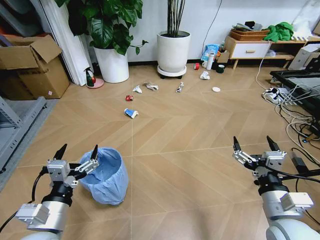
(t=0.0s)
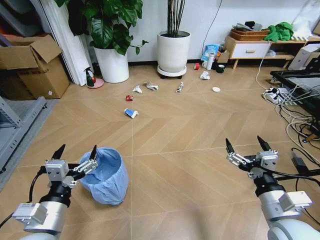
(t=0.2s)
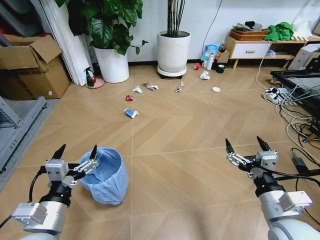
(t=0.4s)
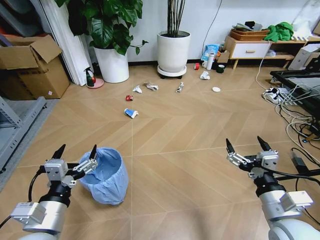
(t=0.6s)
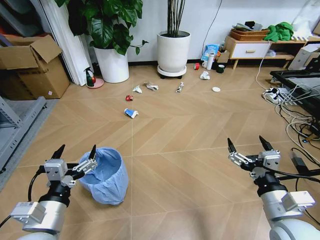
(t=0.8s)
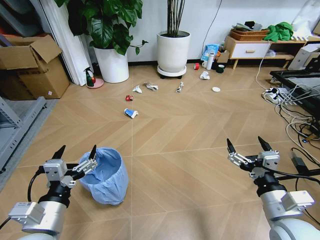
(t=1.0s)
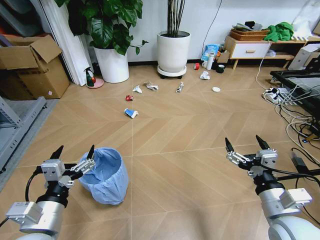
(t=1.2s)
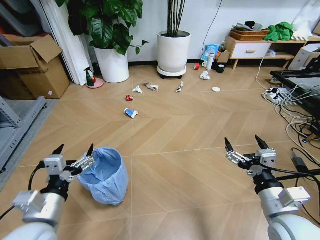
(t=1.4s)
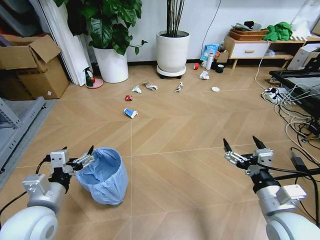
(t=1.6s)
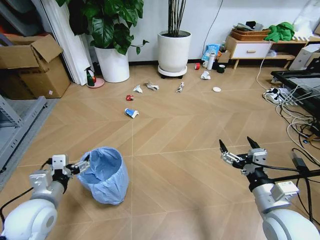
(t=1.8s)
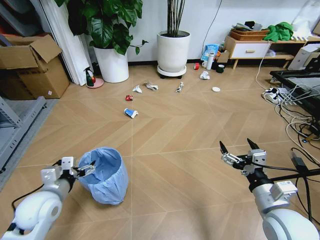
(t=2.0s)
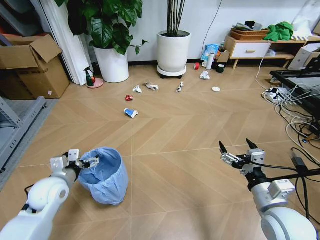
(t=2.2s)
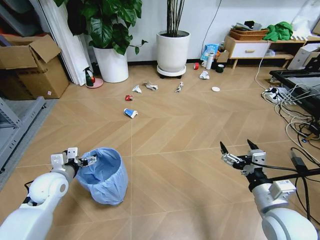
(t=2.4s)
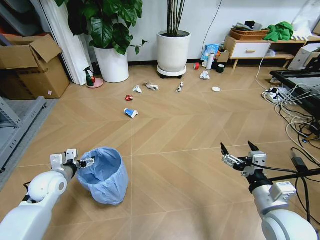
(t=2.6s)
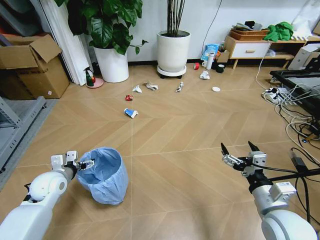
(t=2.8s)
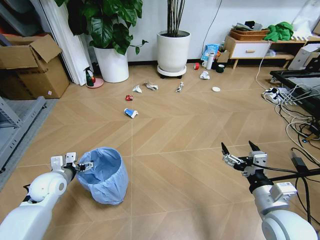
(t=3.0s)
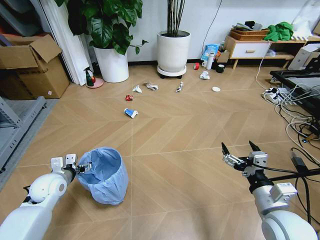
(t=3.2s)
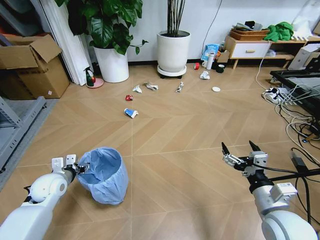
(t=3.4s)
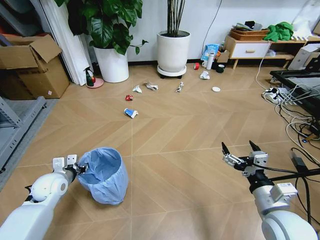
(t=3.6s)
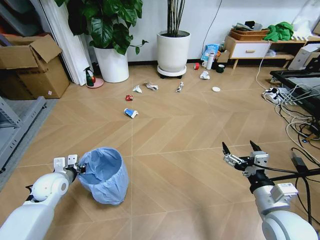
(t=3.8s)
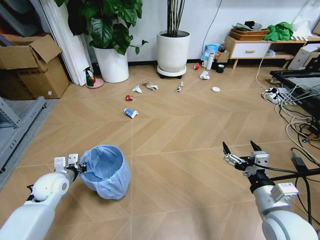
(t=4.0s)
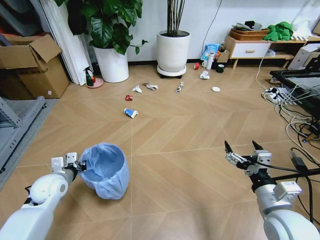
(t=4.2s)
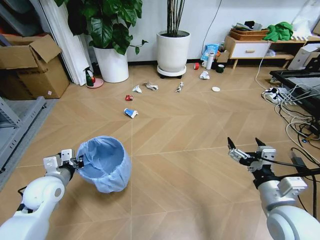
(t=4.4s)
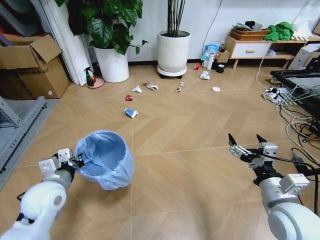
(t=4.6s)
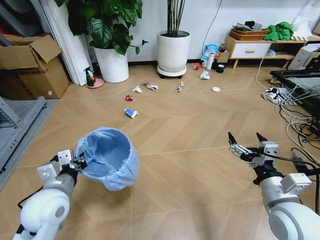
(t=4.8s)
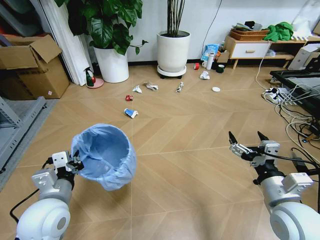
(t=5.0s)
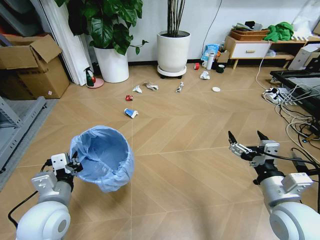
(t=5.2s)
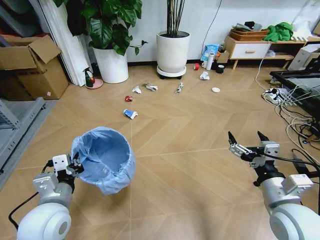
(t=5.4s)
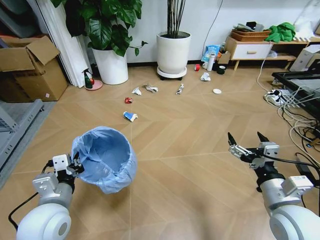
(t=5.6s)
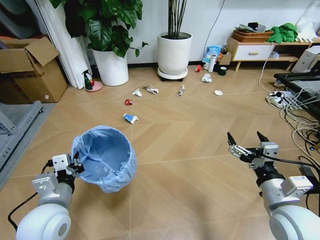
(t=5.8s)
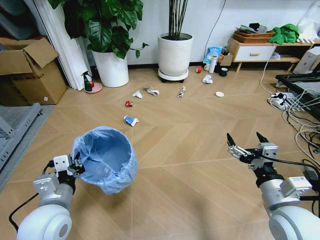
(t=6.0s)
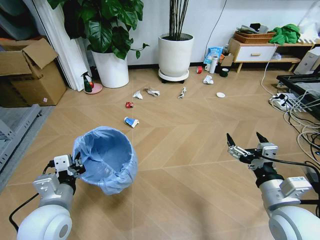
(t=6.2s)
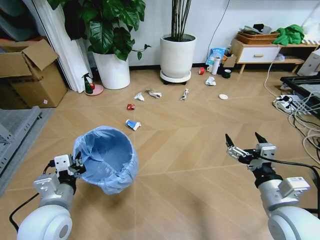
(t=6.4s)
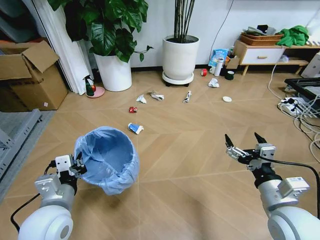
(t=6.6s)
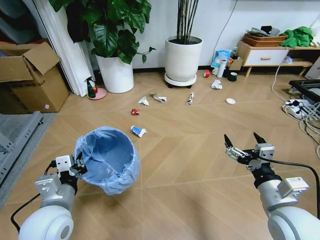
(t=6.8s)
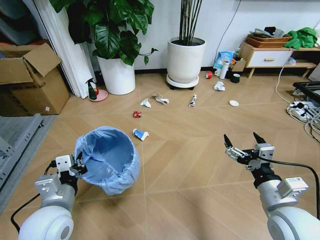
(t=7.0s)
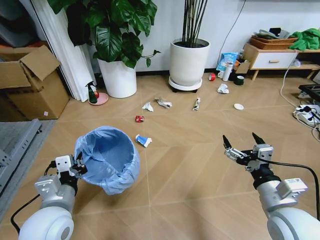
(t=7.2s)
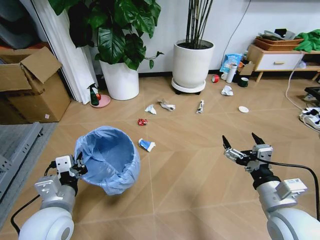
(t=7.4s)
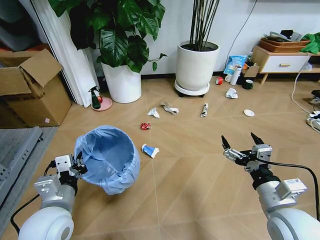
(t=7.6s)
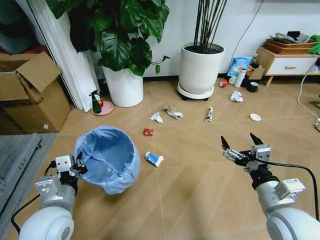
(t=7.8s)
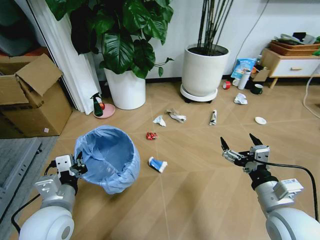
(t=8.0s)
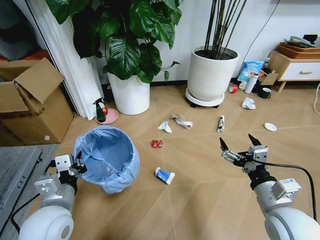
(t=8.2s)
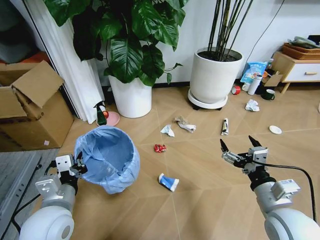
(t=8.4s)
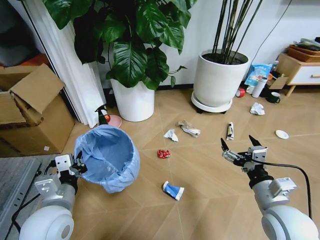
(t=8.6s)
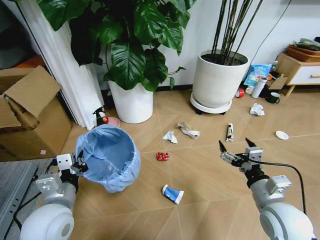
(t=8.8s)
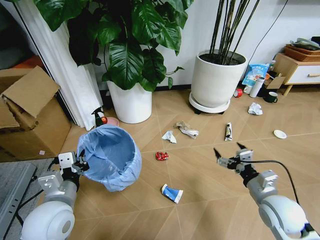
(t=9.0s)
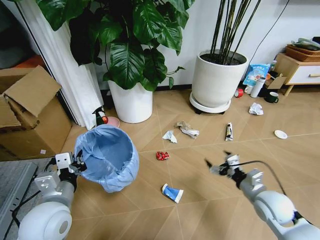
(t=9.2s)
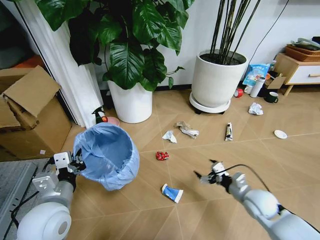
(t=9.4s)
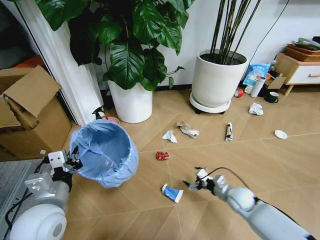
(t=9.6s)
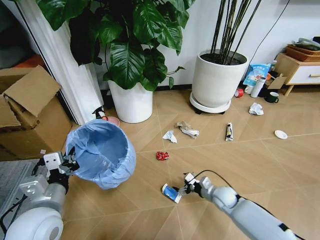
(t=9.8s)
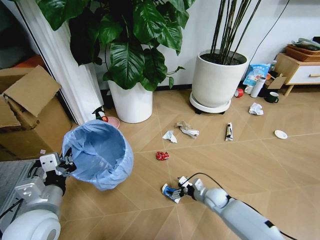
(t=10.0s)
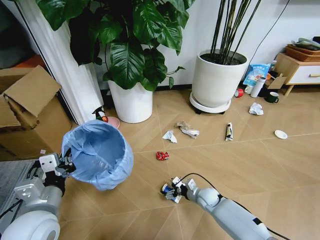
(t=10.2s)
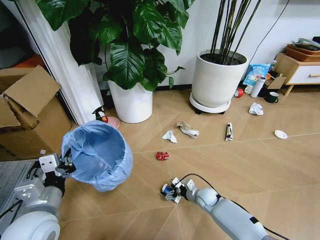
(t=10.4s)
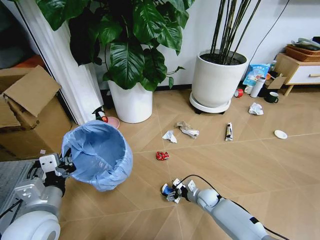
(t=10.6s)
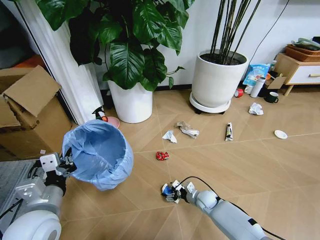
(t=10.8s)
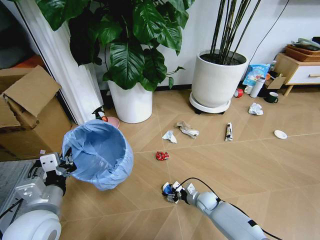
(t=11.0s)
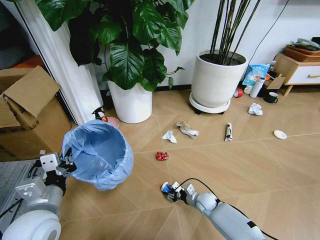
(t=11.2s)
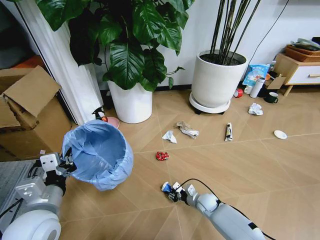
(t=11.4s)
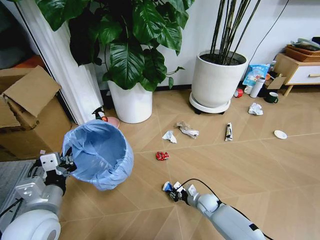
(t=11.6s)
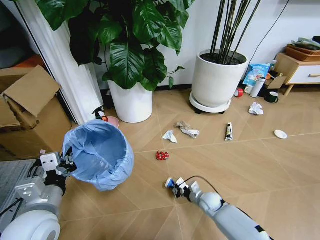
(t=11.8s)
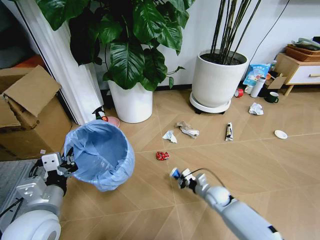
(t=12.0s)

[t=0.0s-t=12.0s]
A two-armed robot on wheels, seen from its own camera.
Task of the whole recording: Pick up the trash bin and place the garbage on the floor into it.
t=1.6s to t=3.0s: The left gripper is displaced forward, downward and to the left by roughly 20 cm.
t=3.0s to t=4.4s: The left gripper closes its fingers.
t=4.4s to t=6.0s: The left gripper goes about 15 cm backward, to the right and upward.
t=7.6s to t=9.0s: The right gripper moves downward and forward, about 10 cm.
t=9.0s to t=10.4s: The right gripper is displaced downward, forward and to the left by roughly 30 cm.
t=10.4s to t=12.0s: The right gripper changes place by about 5 cm, and closes up.

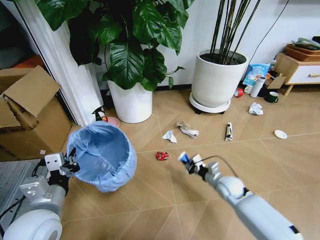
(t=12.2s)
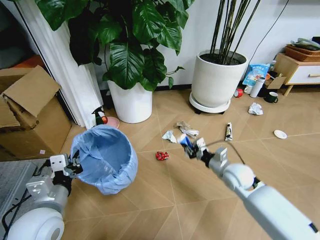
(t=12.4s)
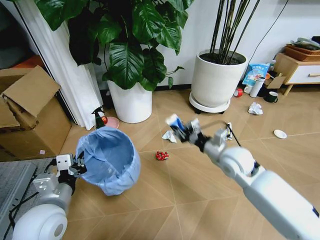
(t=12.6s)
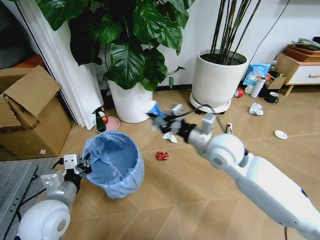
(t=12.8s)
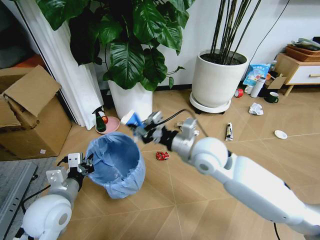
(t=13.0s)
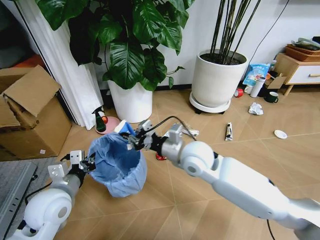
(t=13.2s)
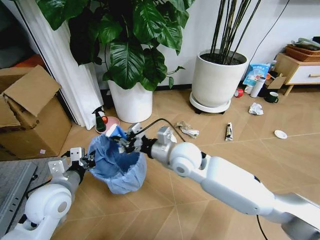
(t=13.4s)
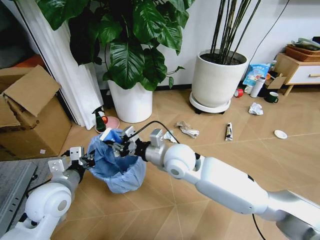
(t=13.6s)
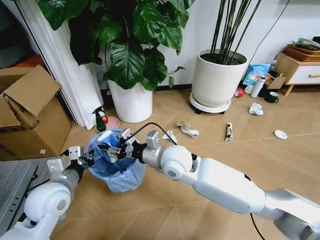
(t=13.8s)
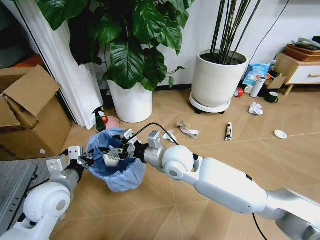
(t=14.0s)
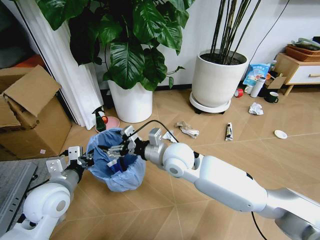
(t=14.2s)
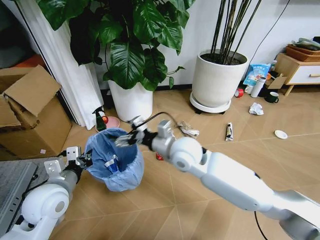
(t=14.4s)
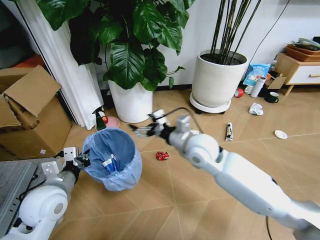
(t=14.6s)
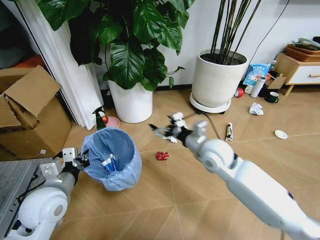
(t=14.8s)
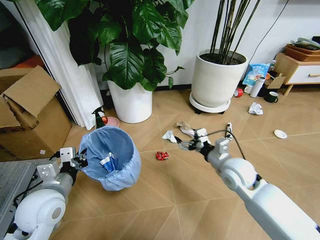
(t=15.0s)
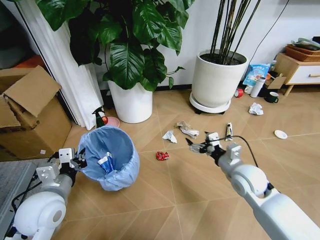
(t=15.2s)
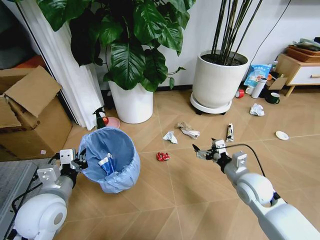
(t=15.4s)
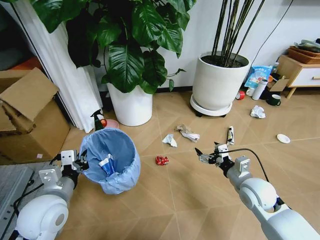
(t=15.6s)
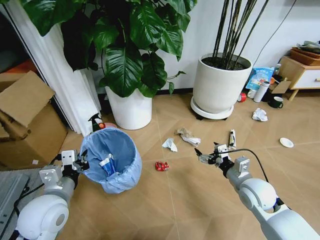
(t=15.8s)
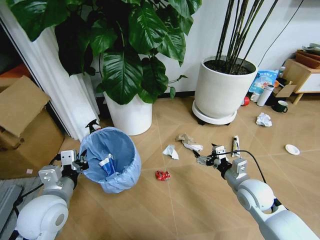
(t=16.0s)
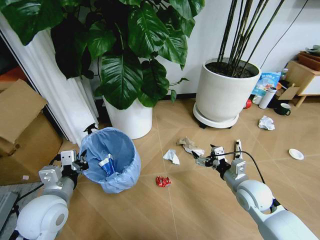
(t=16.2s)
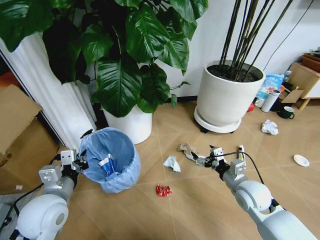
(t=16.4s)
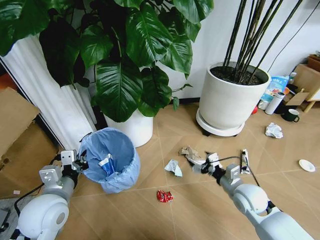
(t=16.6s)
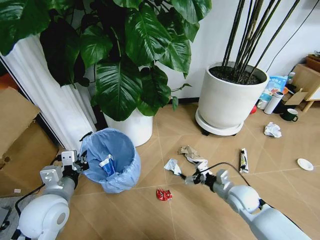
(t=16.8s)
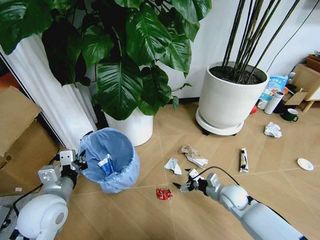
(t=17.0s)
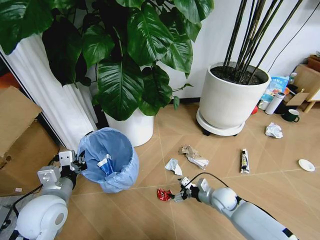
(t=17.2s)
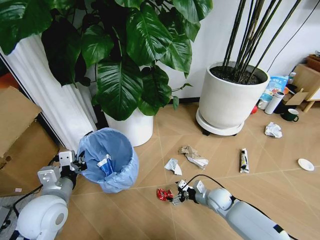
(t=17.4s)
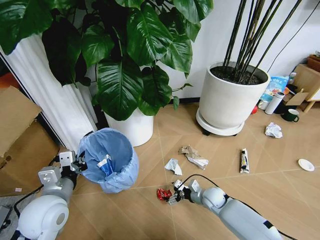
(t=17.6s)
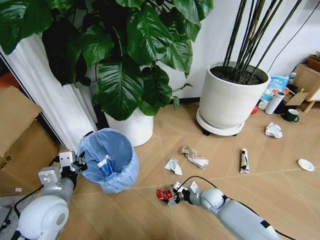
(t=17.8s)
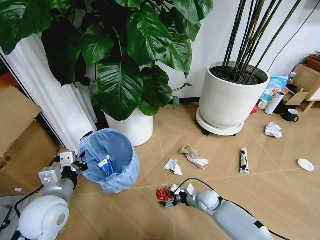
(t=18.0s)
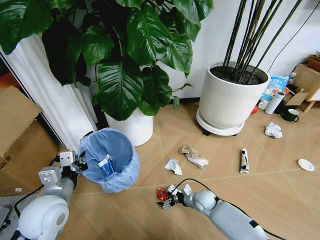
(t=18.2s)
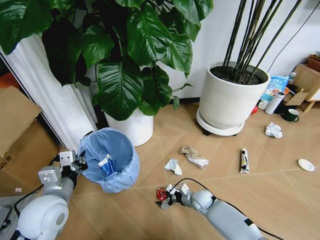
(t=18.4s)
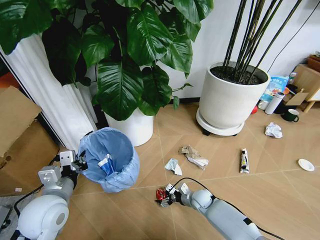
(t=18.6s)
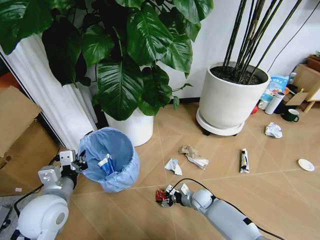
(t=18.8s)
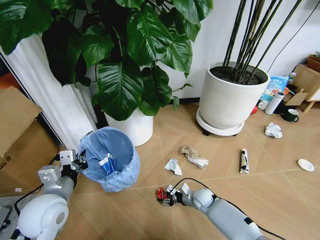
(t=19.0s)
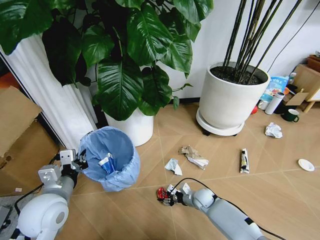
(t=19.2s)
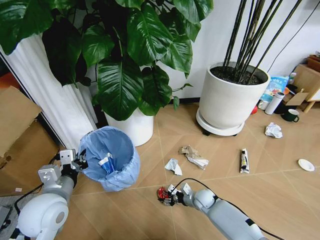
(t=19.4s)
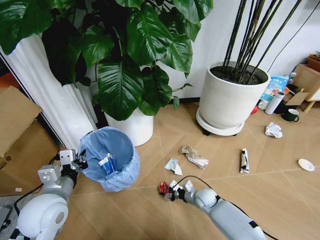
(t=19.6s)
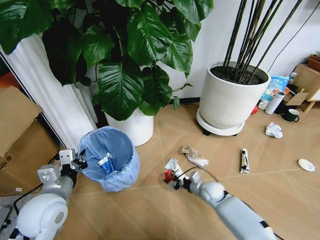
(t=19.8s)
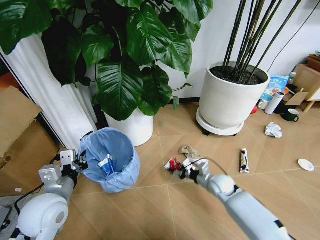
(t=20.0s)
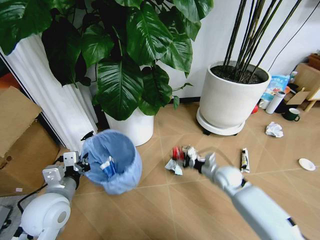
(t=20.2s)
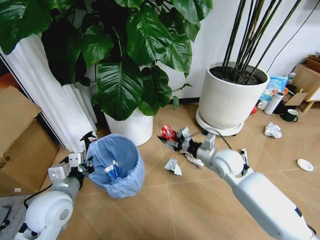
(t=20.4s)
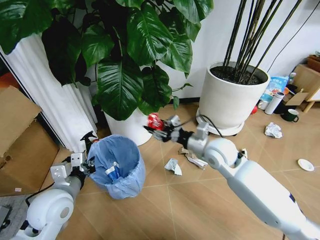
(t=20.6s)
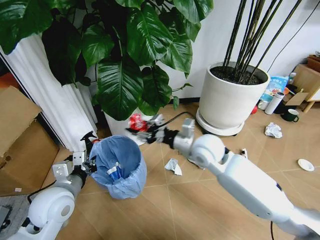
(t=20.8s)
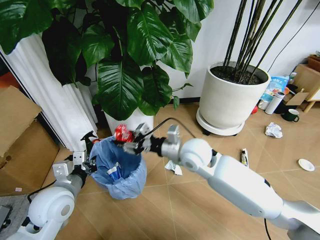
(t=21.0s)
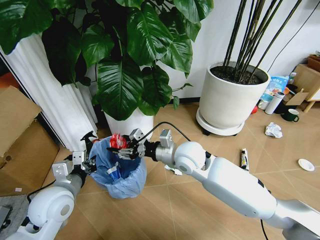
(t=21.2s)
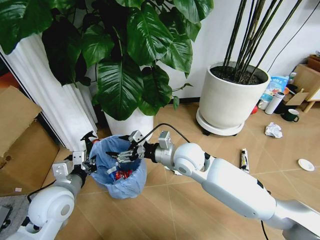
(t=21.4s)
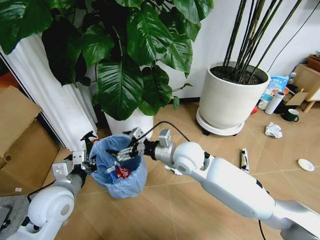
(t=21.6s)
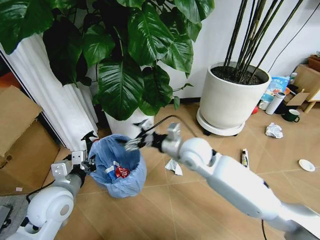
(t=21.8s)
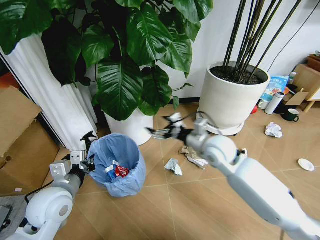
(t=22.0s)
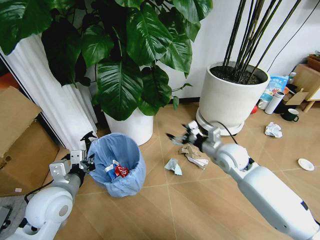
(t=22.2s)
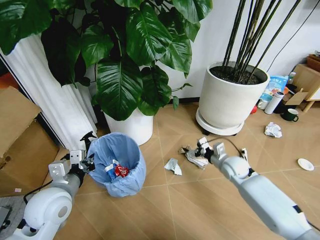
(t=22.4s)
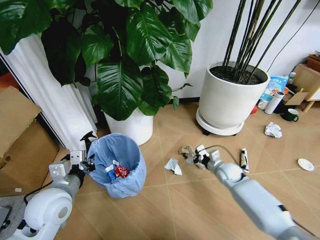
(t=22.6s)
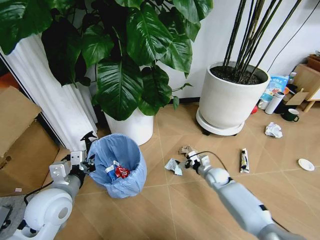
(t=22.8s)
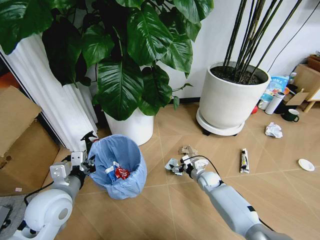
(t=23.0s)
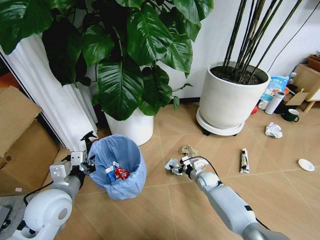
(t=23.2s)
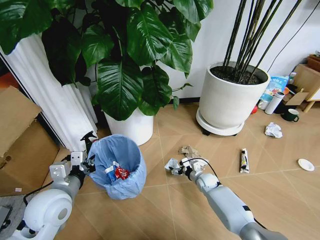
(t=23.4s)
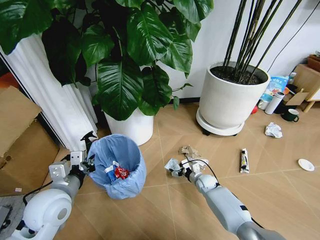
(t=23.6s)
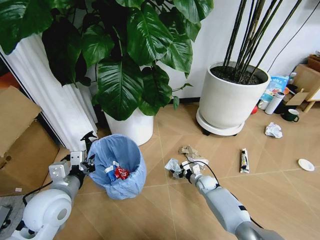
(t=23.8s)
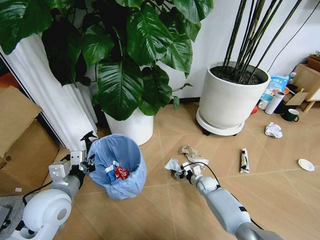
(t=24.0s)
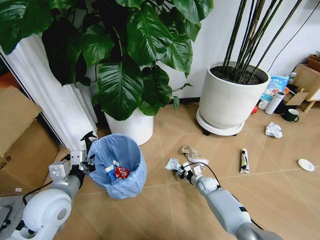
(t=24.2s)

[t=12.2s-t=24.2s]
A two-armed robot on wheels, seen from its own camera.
Task of the whole recording: Pick up the trash bin and place the garbage on the floor into it.
t=12.2s to t=13.8s: The left gripper shifts some 5 cm forward. The right gripper travels to the left and upward by roughly 30 cm.
t=13.8s to t=15.2s: The right gripper moves to the right, some 25 cm, and opens up.
t=15.2s to t=16.6s: The right gripper is displaced downward by about 5 cm.
t=16.6s to t=18.2s: The right gripper travels downward and to the left by some 20 cm.
t=18.2s to t=19.8s: The right gripper ends up some 5 cm from where it was, and closes up.
t=19.8s to t=21.2s: The right gripper shifts about 30 cm upward and to the left.
t=21.2s to t=22.6s: The right gripper travels downward and to the right by roughly 30 cm, and opens.
t=22.6s to t=24.2s: The right gripper moves downward and to the left, some 10 cm, and closes.
